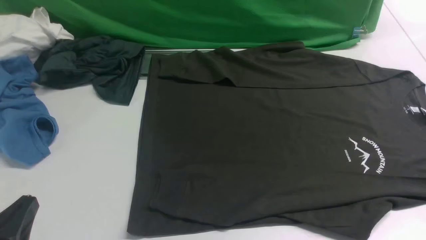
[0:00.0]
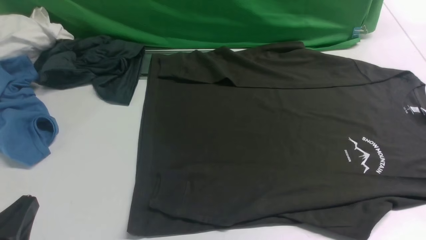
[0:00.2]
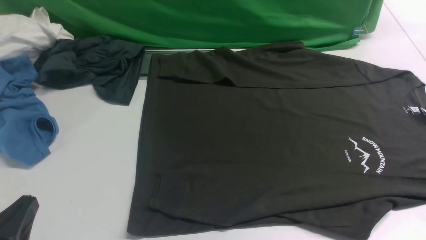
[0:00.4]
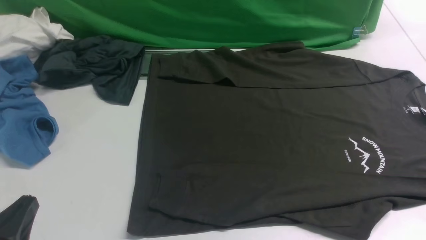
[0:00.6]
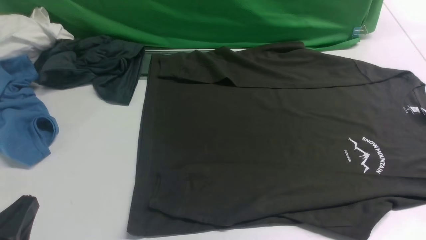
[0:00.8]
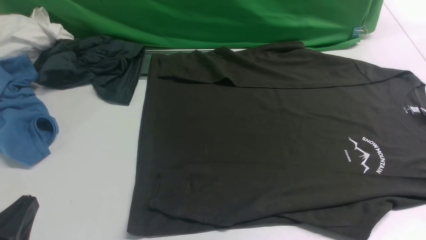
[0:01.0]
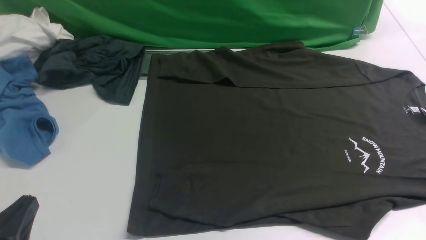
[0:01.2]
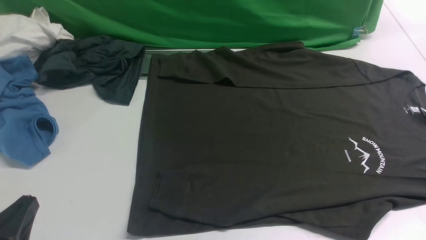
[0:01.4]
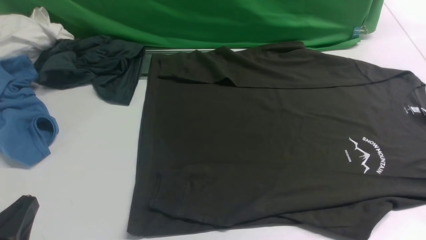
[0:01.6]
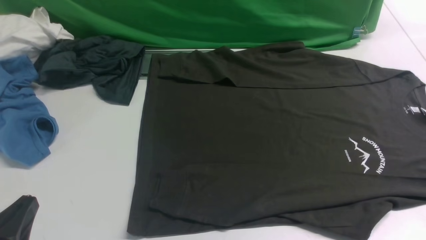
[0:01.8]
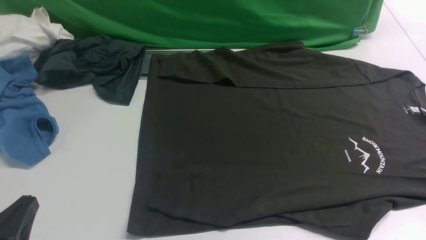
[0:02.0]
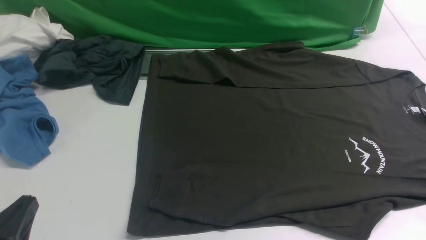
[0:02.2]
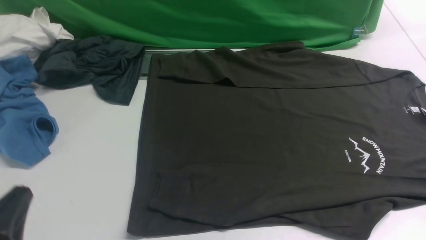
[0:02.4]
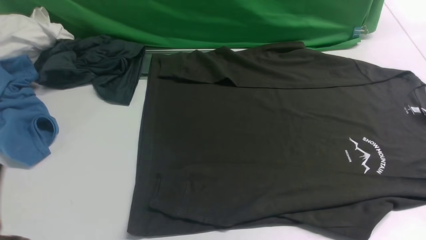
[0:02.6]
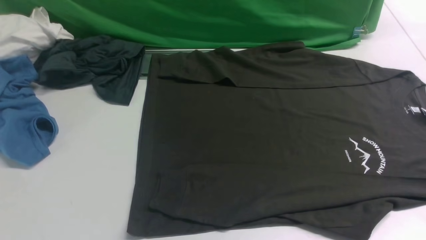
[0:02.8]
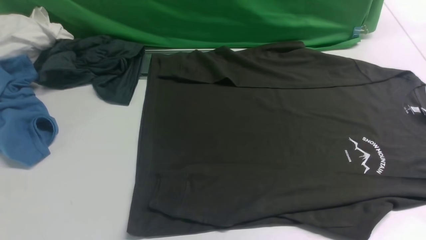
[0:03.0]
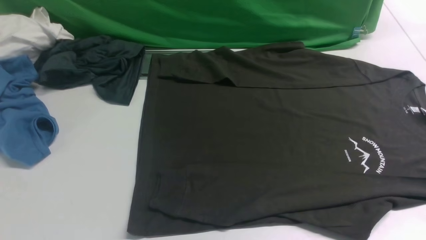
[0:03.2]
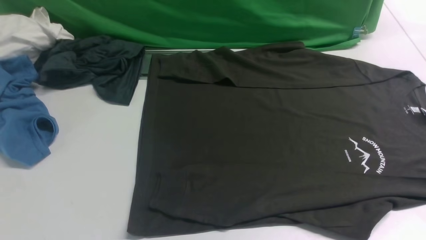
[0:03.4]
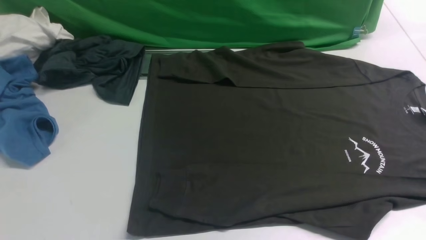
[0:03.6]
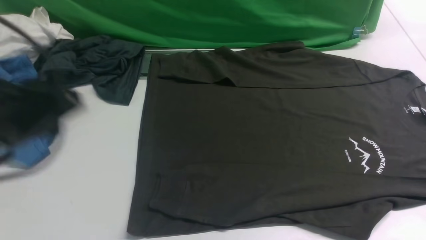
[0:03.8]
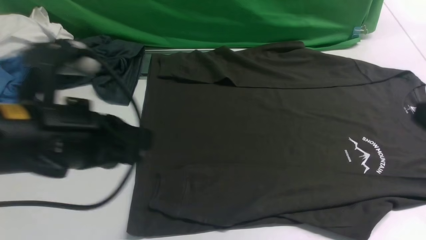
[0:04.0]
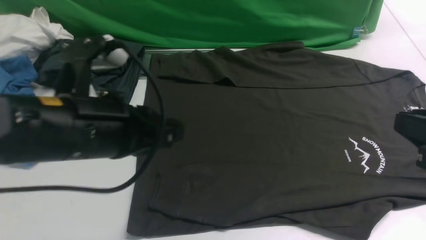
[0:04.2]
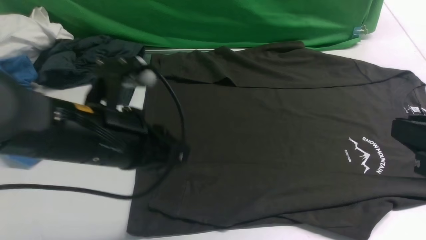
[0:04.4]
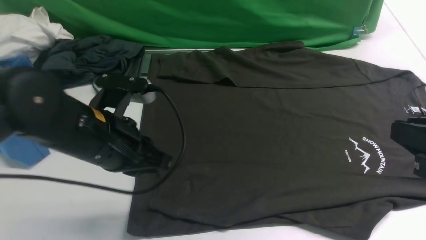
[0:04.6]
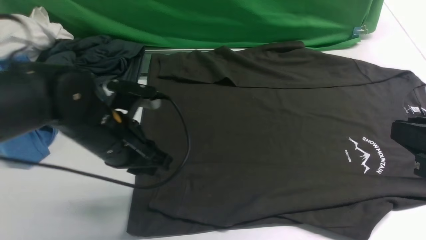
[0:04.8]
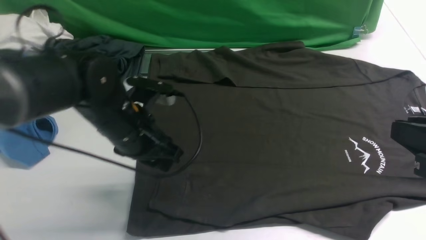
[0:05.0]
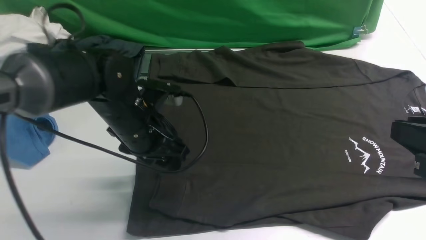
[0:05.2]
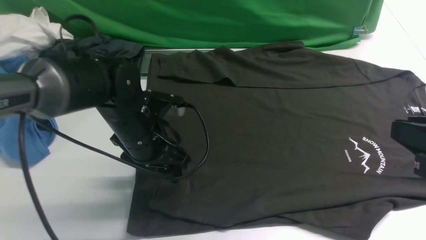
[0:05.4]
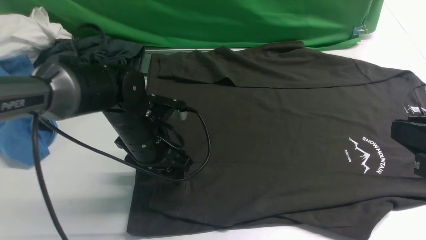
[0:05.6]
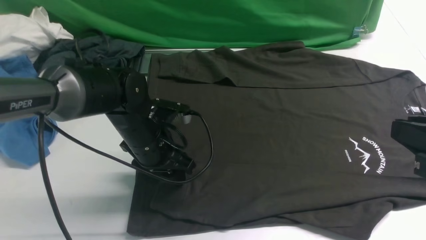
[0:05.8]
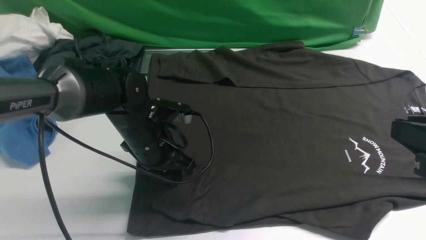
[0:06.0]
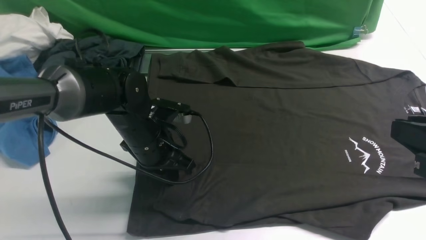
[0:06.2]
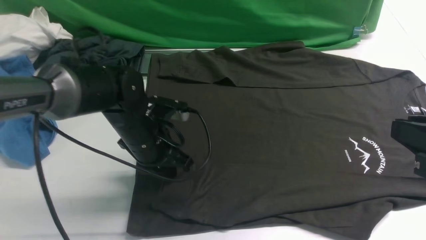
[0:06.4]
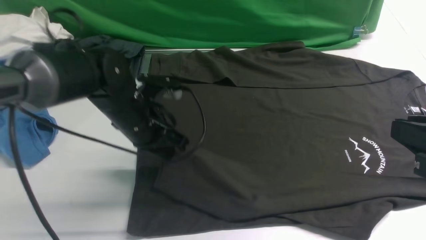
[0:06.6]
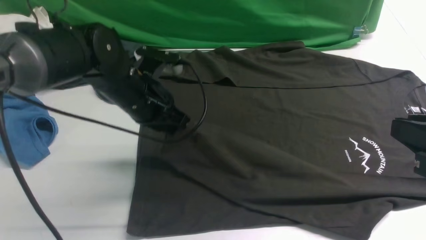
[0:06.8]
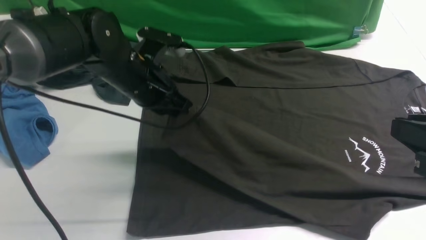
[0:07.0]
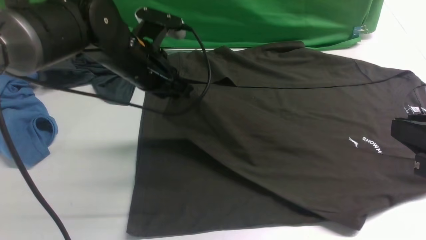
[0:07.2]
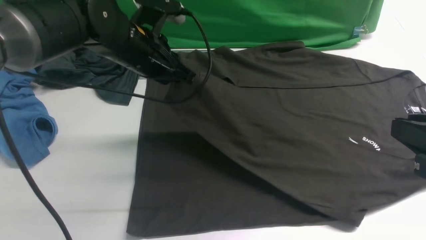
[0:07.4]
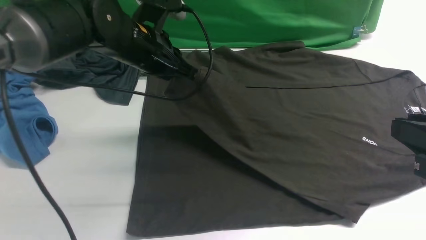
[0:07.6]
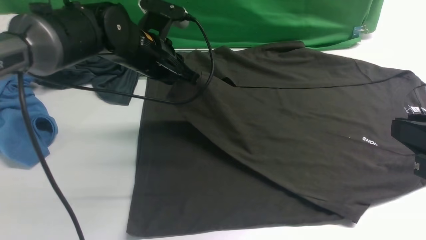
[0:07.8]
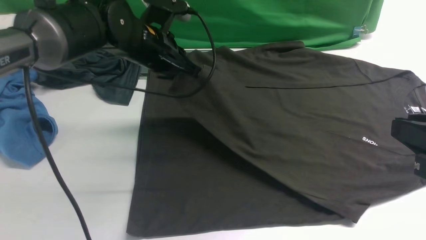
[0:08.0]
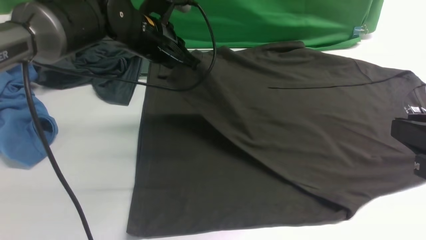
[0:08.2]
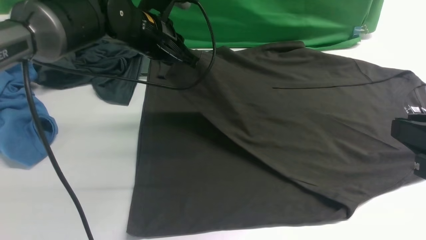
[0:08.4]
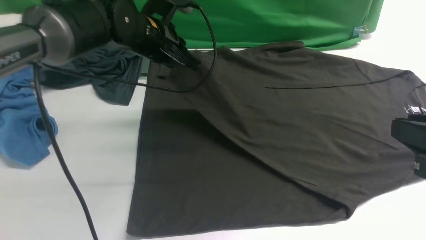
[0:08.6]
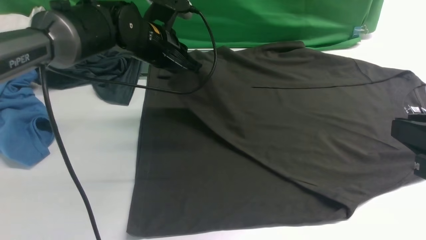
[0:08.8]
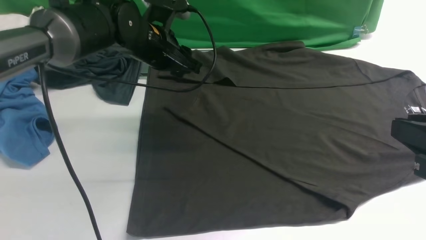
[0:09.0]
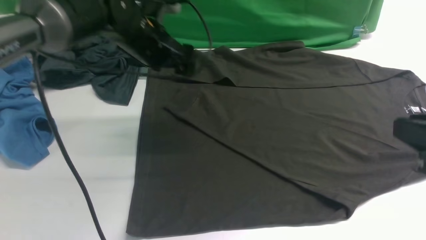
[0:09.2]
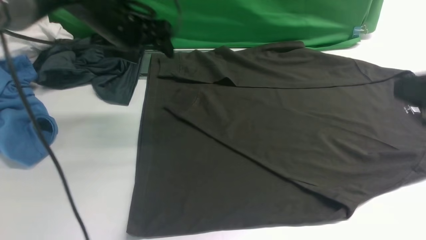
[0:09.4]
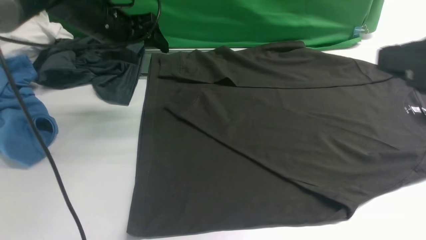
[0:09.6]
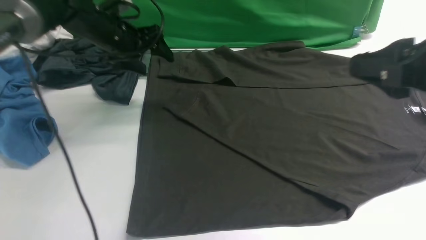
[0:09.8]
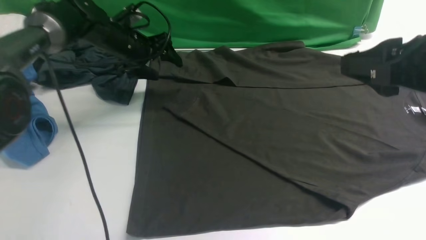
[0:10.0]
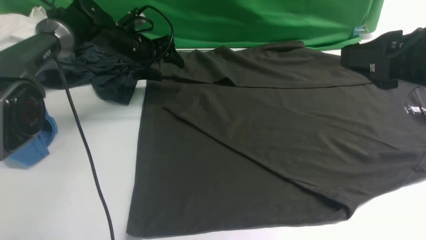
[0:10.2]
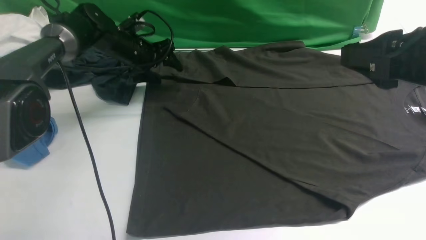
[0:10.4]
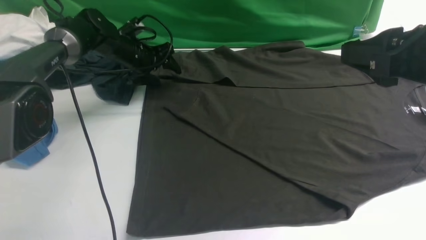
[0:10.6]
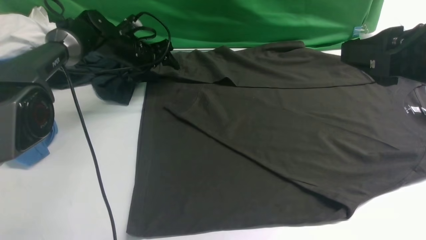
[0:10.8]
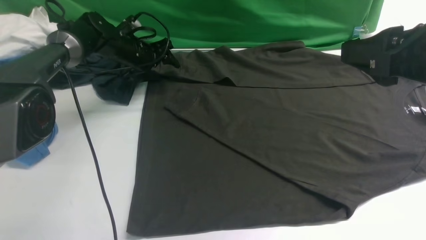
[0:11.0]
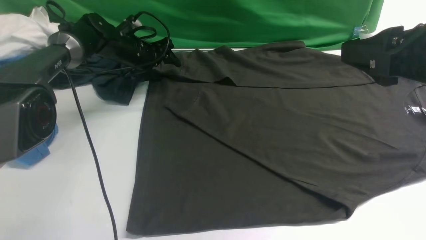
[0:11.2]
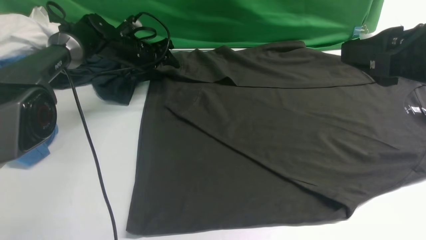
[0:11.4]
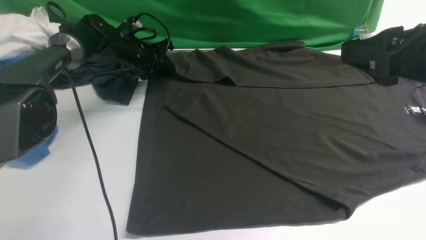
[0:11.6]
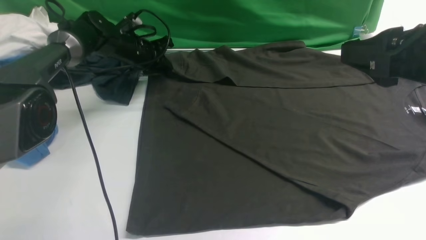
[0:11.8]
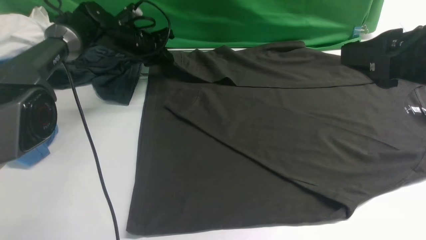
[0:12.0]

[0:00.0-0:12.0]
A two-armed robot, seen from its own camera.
Step, 0:00.0 to 0:06.4: use the left arm to clamp the cuff closest to it.
Step, 0:06.6 to 0:08.8: use the left arm to drag and place the cuff at the centered position on the left edge of the fabric.
0:00.0 to 0:01.6: The two grippers keep their place.
0:01.6 to 0:03.0: The left gripper travels upward by about 10 cm.
0:03.0 to 0:04.4: The left gripper moves forward and to the right, roughly 20 cm. Meanwhile the right gripper travels forward and to the left by some 10 cm.
0:04.4 to 0:06.0: The left gripper travels downward and forward by roughly 15 cm, and opens and closes again.
0:06.0 to 0:07.6: The left gripper is displaced upward and forward by roughly 15 cm.
0:07.6 to 0:09.0: The left gripper opens up.
0:09.0 to 0:10.4: The left gripper heads forward, downward and to the left, covering approximately 15 cm. Meanwhile the right gripper heads forward and upward, covering about 10 cm, and opens.
0:10.4 to 0:12.0: The left gripper closes.

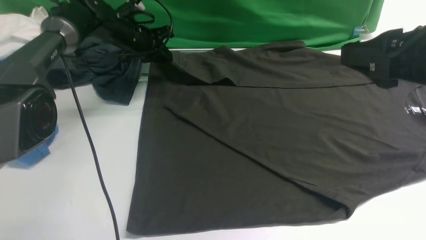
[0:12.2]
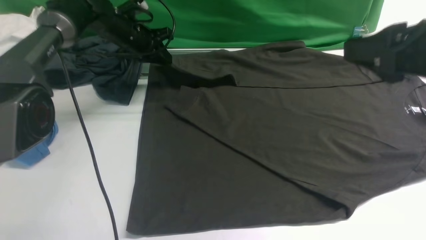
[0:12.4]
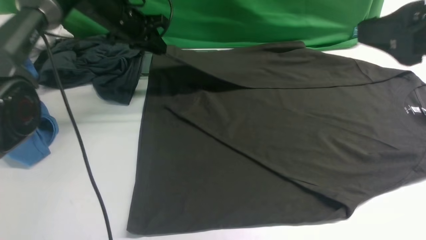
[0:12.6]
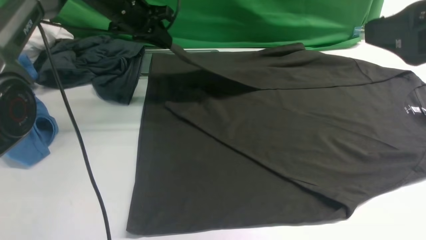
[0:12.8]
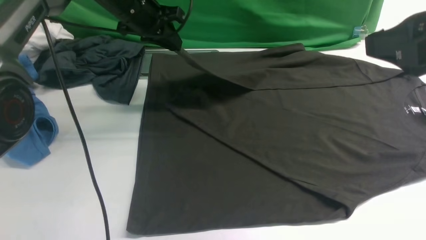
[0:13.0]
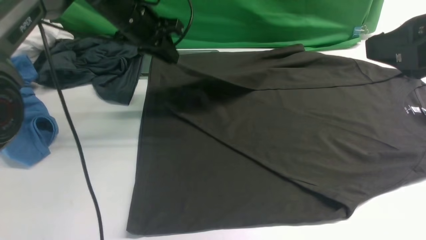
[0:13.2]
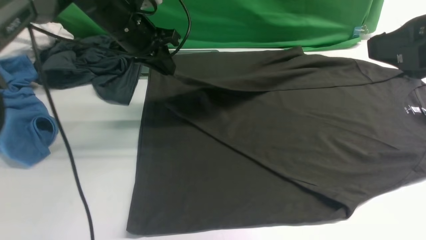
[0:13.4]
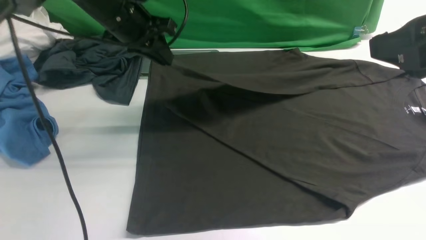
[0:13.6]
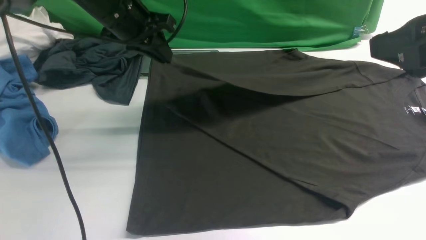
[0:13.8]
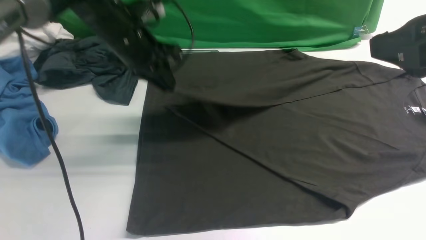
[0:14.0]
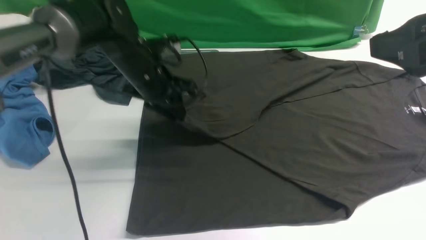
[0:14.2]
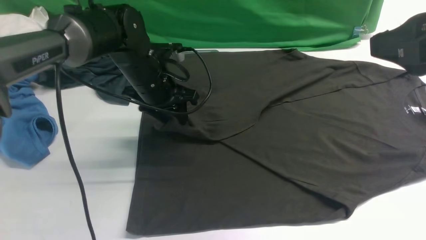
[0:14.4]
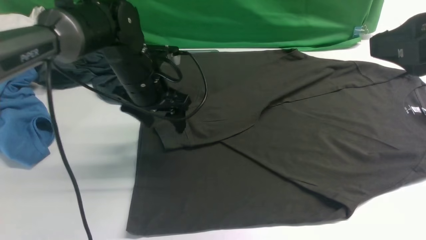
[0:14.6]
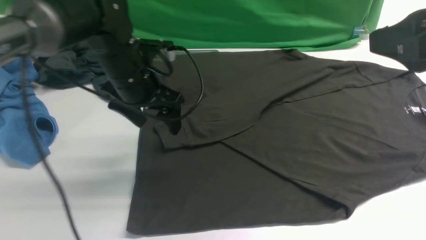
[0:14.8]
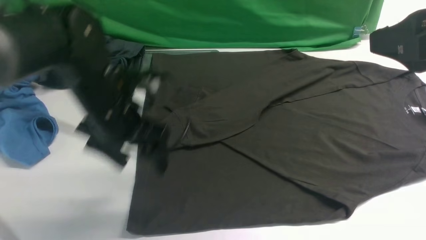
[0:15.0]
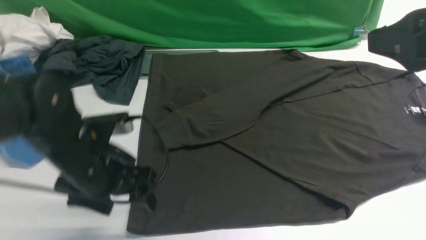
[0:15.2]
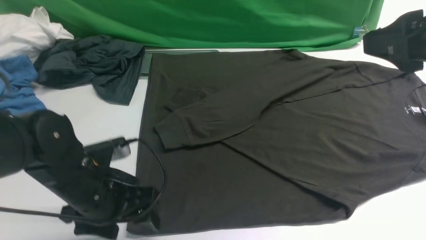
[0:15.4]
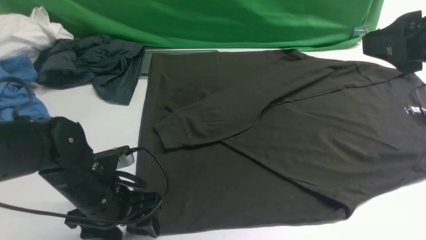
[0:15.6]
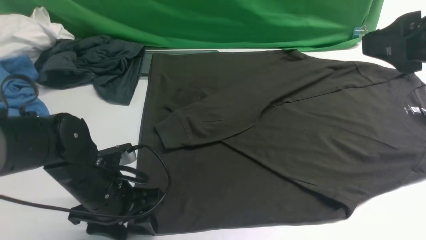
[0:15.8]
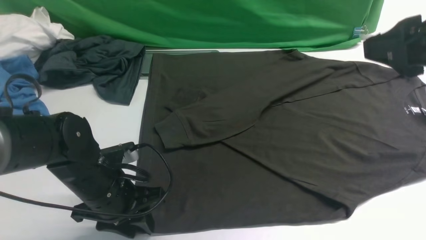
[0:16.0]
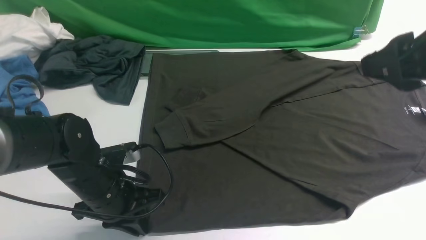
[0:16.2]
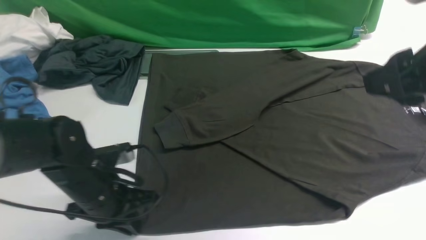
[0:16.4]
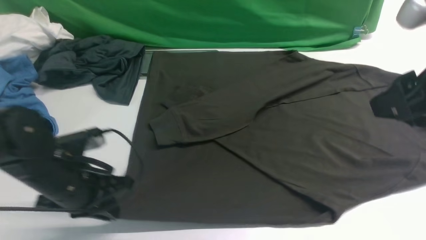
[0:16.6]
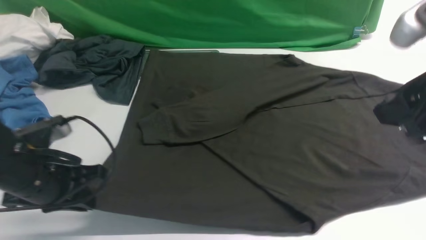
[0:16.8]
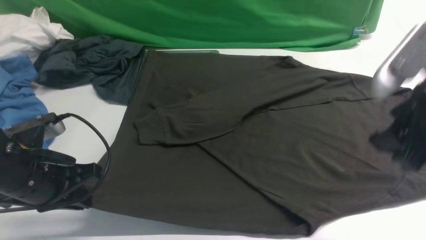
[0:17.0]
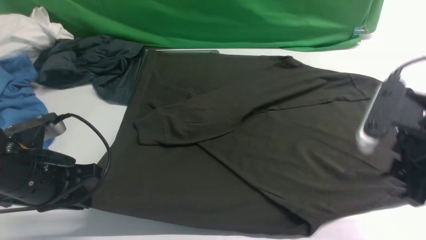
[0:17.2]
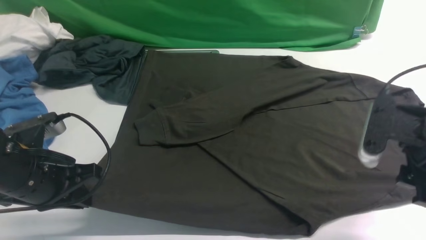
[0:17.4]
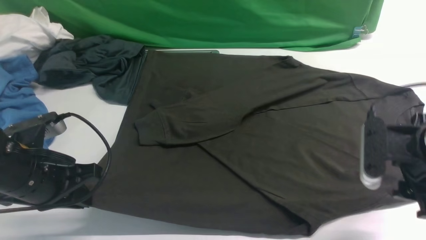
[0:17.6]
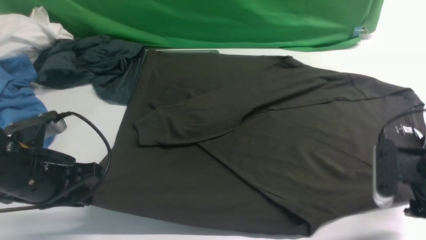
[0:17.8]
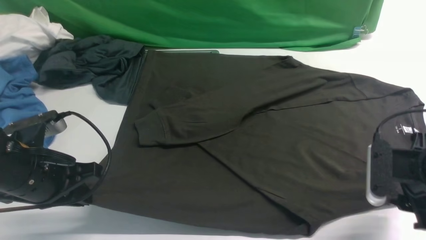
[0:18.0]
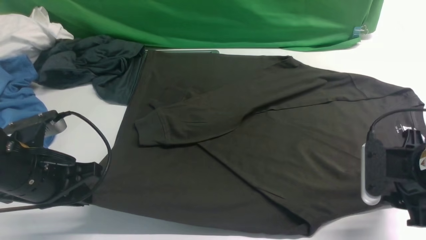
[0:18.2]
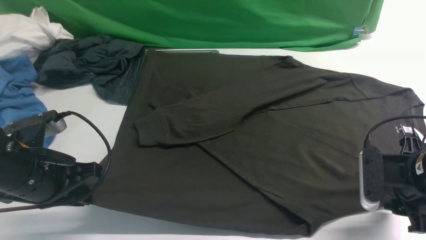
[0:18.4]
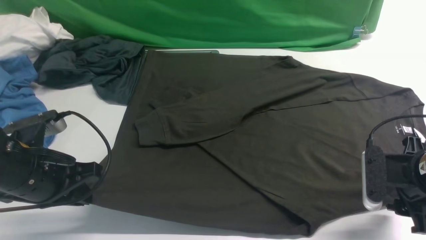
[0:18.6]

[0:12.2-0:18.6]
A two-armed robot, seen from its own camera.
Step, 0:12.4 to 0:14.4: use the left arm to drag and drop the cuff onto the cuff closest to the left arm.
0:12.2 to 0:13.8: The left gripper goes some 15 cm backward and upward.
0:13.8 to 0:15.4: The left gripper is displaced backward and downward by approximately 25 cm, and opens.
0:15.4 to 0:17.0: The right gripper moves downward, roughly 10 cm. Meanwhile the left gripper moves to the left, roughly 5 cm, and closes up.
0:17.0 to 0:18.6: The right gripper is displaced downward by approximately 15 cm.
